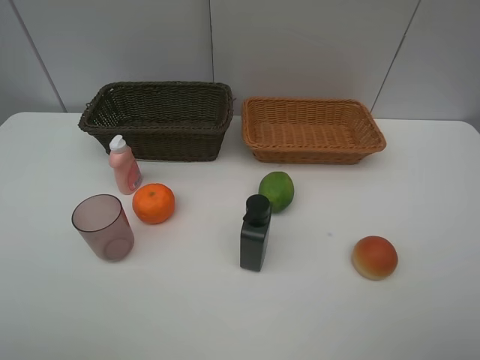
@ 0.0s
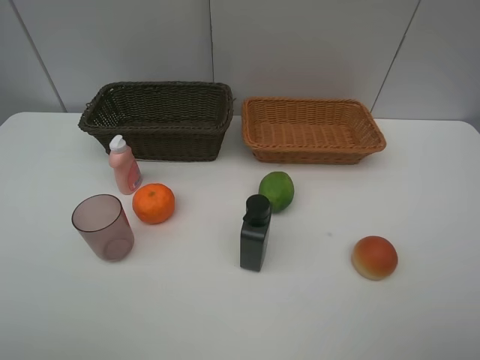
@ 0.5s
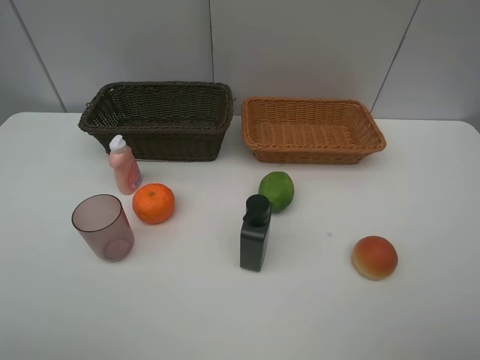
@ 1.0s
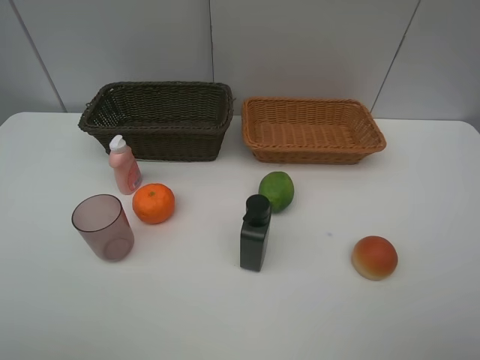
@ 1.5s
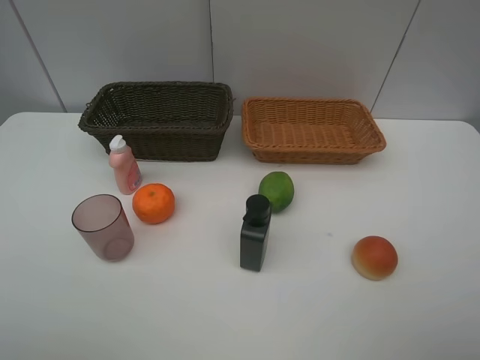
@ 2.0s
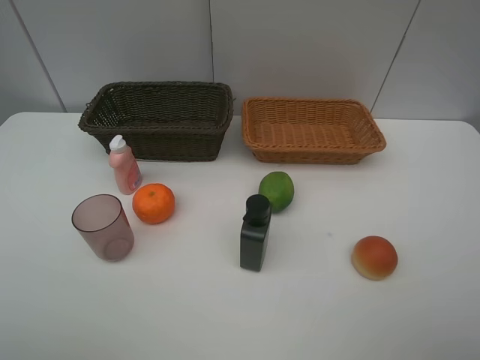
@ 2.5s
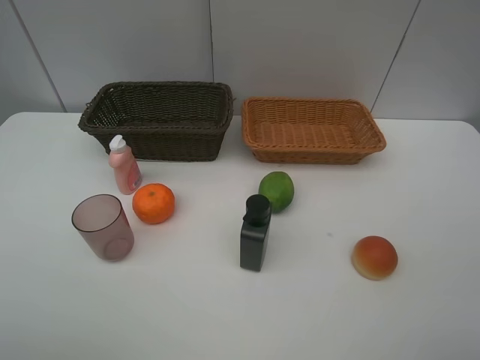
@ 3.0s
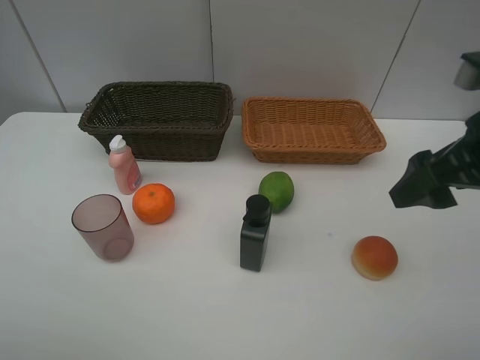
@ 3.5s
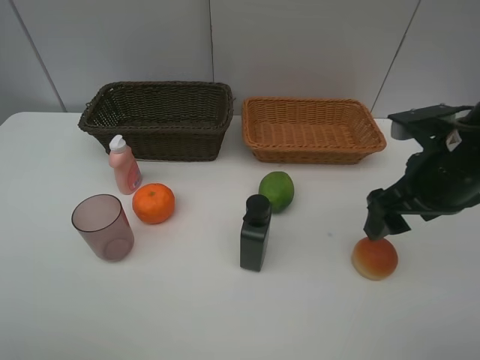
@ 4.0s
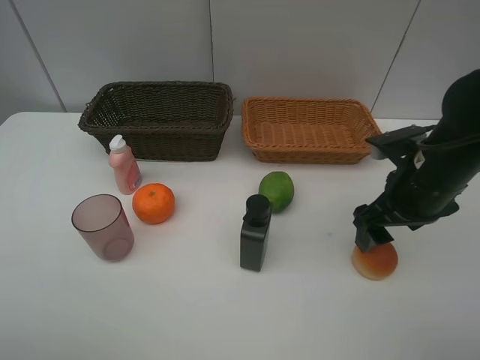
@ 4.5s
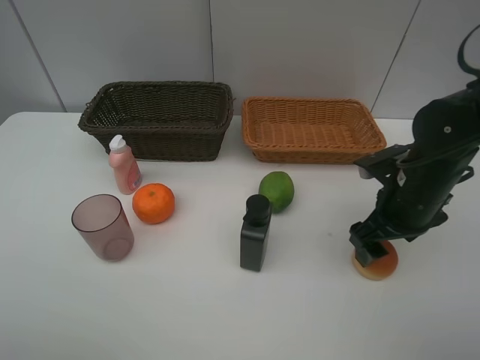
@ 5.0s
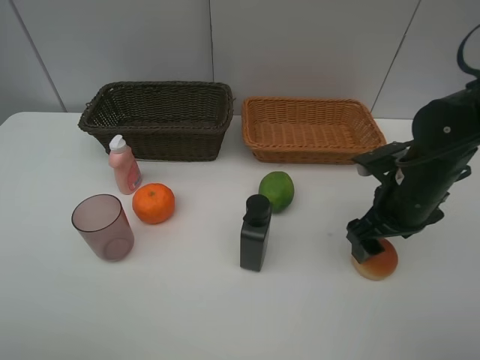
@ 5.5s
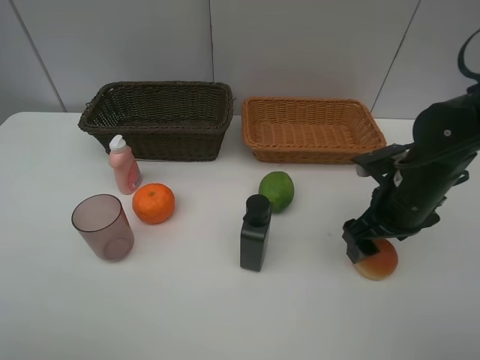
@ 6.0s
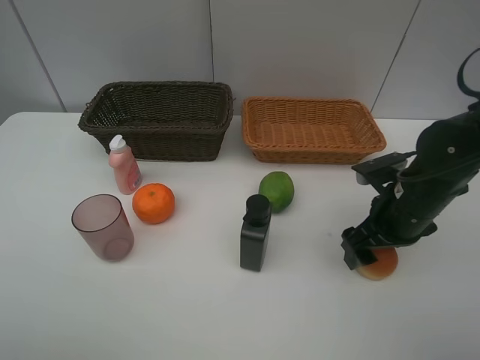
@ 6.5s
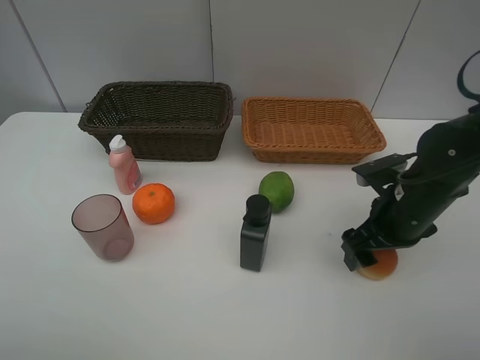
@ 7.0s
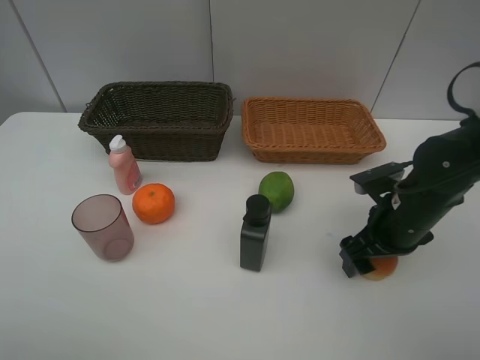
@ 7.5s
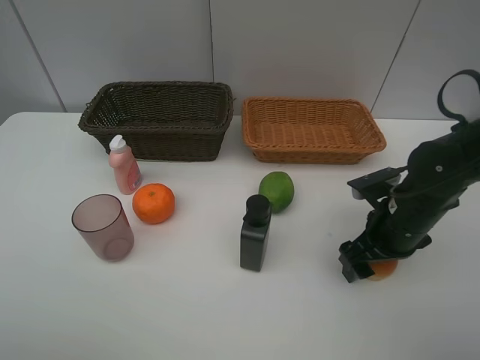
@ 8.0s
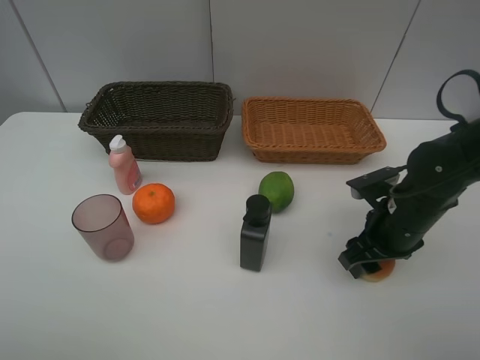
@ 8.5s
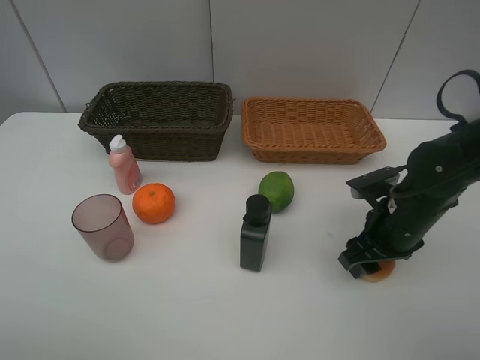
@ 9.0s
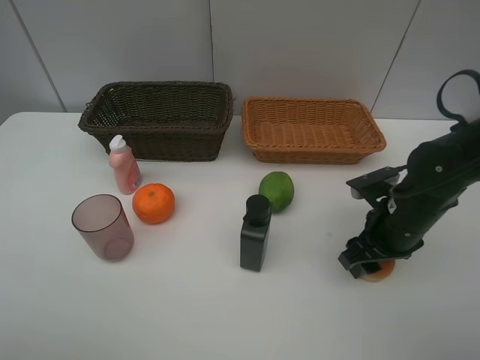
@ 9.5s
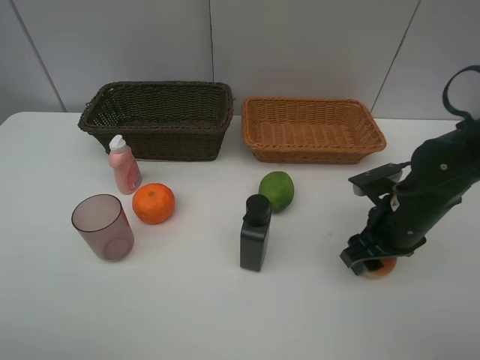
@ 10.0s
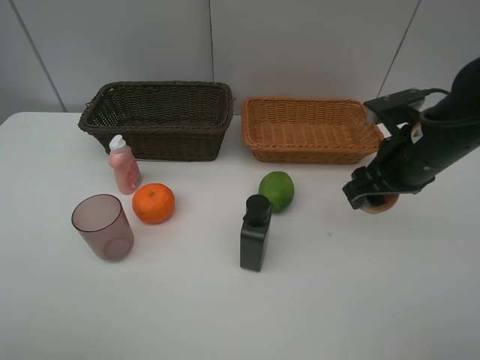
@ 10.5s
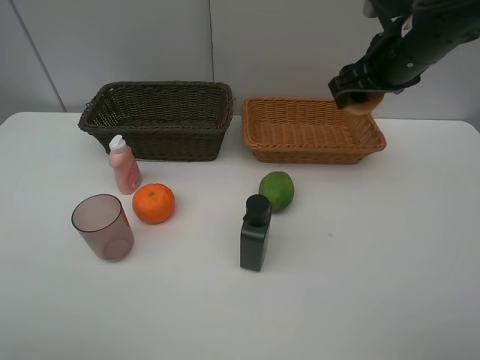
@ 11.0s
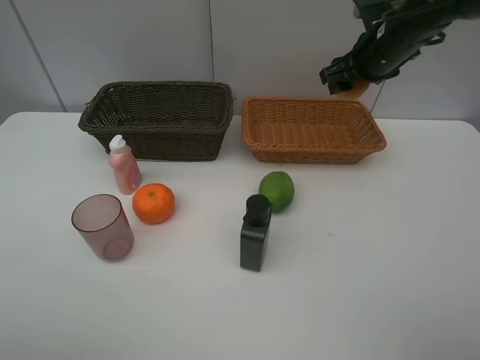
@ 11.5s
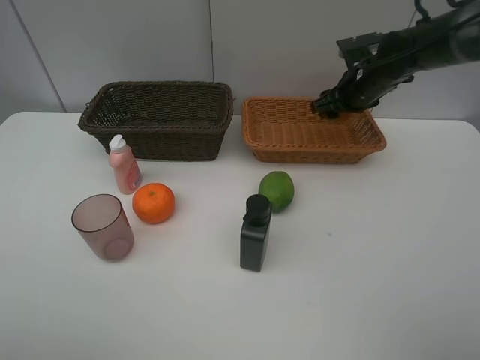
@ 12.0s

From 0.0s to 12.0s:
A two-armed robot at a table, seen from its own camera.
Task of the whole recording: place multiple objects separately in different baskets.
From 0.0s to 2.0s: Both grippers stay put.
From 2.0s to 4.0s: The right gripper travels forward by approximately 20 cm.
From 4.0s to 6.0s: The right gripper heads downward, covering approximately 5 cm.
From 6.0s to 8.0s: There are only small adjustments of the grippers.
From 8.0s to 10.0s: The right gripper closes.
From 10.0s to 12.0s: The right gripper moves forward, roughly 20 cm.

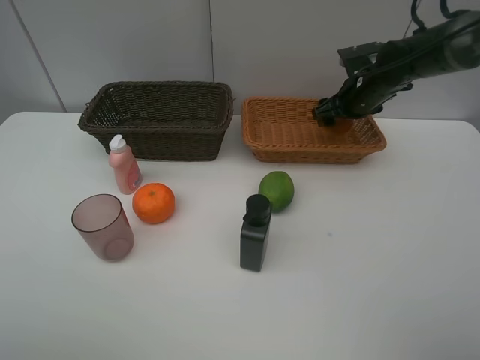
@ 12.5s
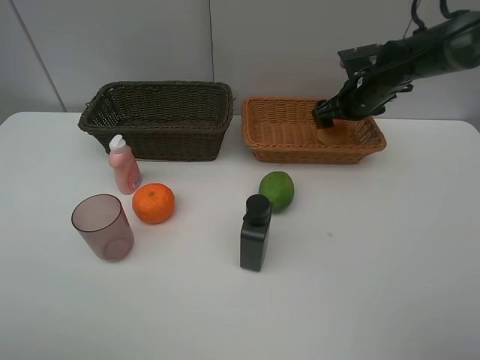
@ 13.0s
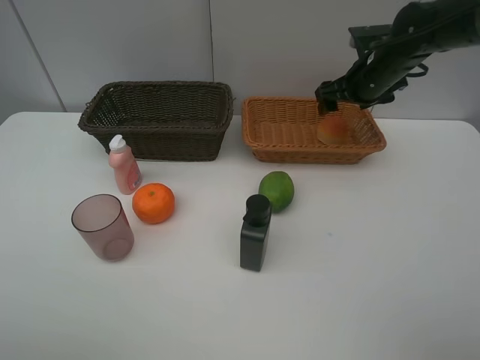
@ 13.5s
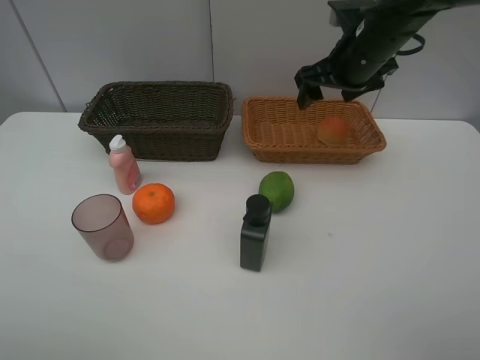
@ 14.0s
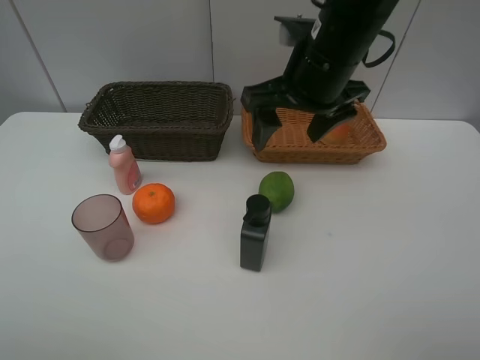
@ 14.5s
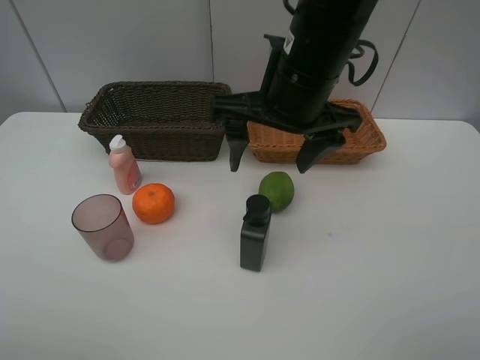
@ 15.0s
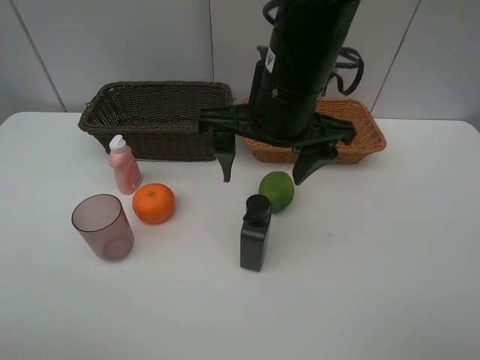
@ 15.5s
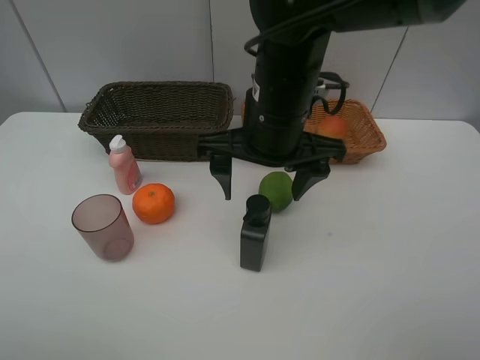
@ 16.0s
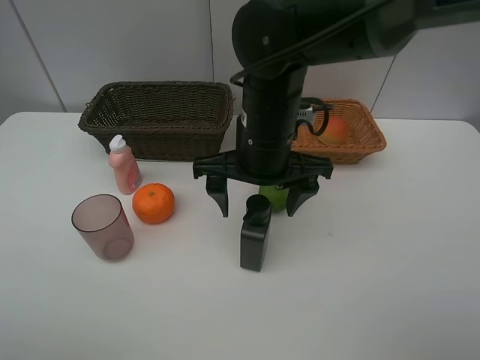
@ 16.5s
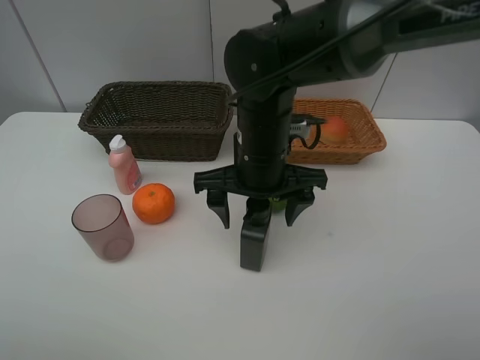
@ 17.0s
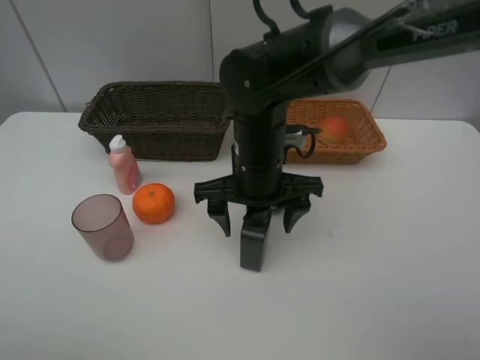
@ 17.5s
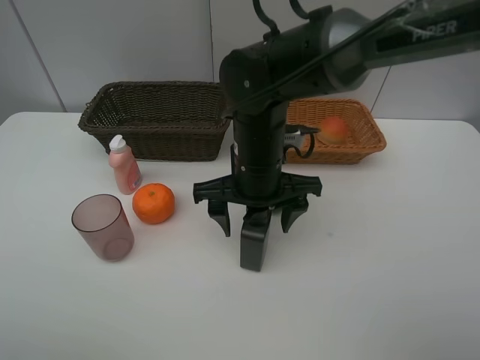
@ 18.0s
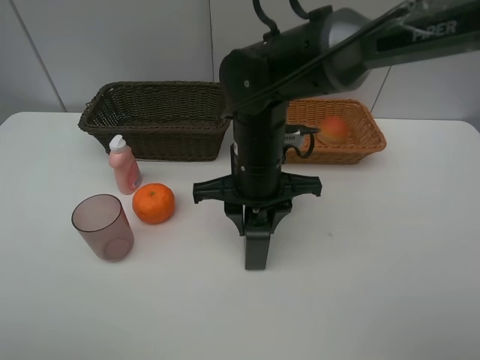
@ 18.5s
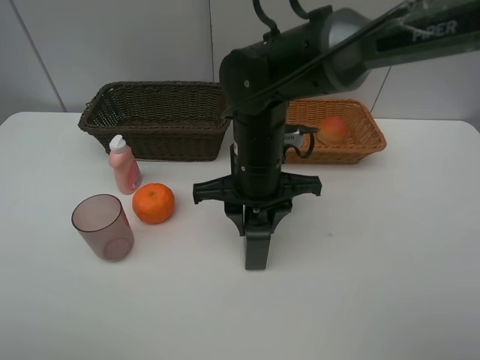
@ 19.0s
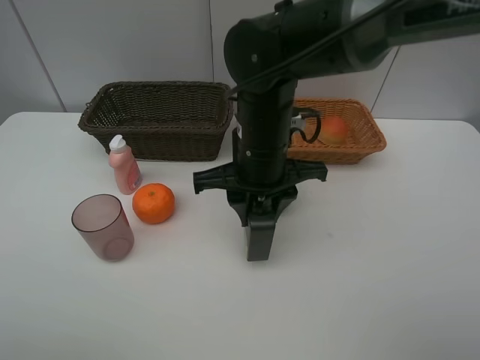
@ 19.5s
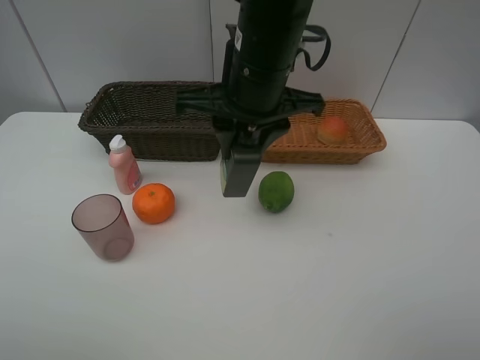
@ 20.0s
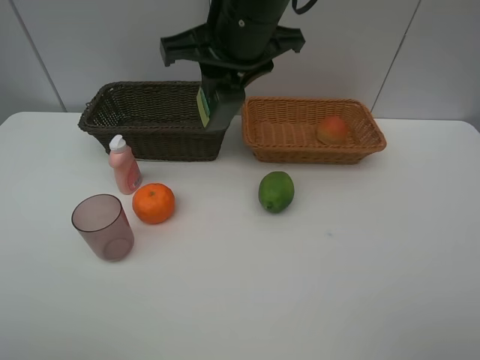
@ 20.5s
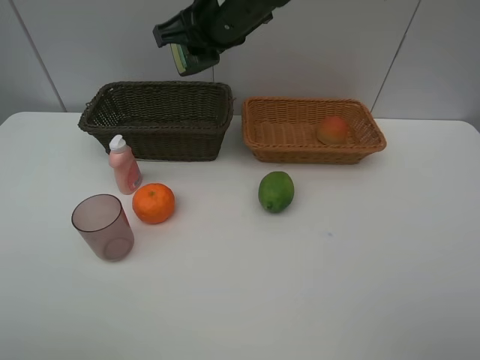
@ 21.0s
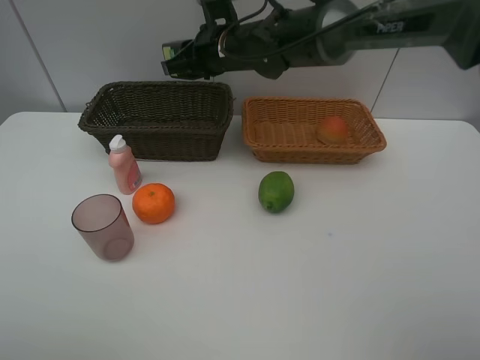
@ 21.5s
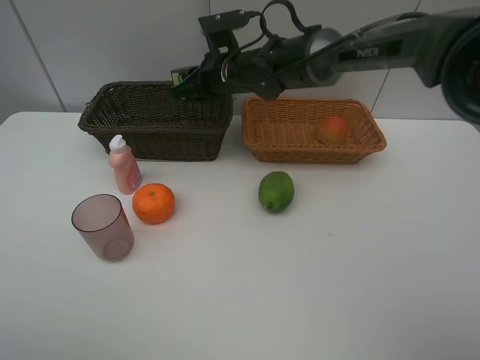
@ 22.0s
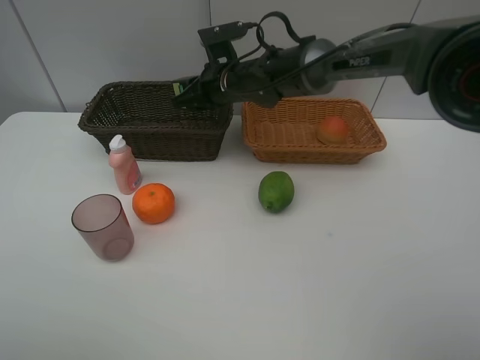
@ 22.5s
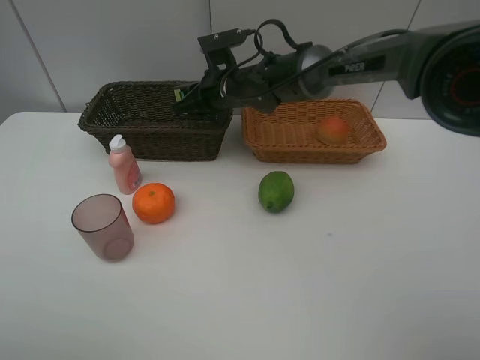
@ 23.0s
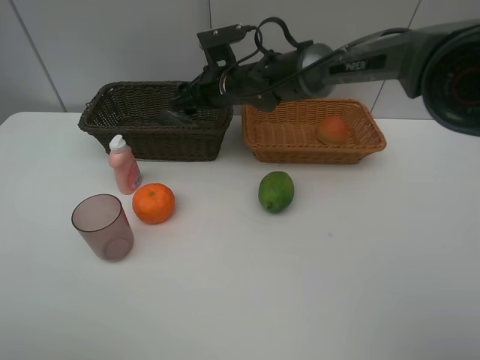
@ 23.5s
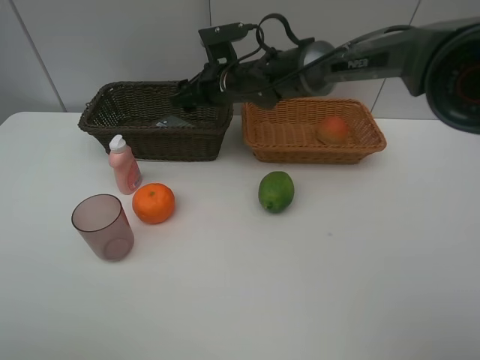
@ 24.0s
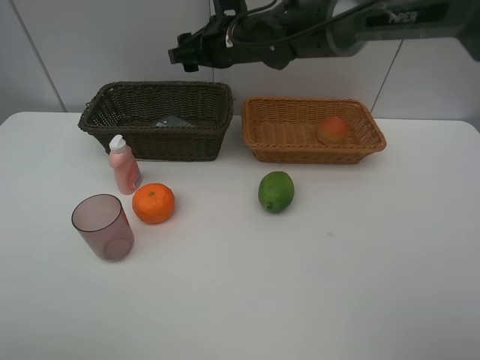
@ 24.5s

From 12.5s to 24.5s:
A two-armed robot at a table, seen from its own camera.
Task of the whole recording: place multiple objects separately in different baskets.
From 12.5s to 14.5s: The right gripper goes roughly 25 cm backward, to the left and upward.
From 14.5s to 16.5s: The right gripper moves downward and to the left, roughly 10 cm.
From 16.5s to 18.5s: The right gripper closes its fingers.
From 18.5s to 20.5s: The right gripper goes approximately 15 cm upward.
From 20.5s to 22.5s: The right gripper is displaced downward and forward by about 20 cm.
From 22.5s to 24.5s: The right gripper travels upward by approximately 5 cm, and opens up.

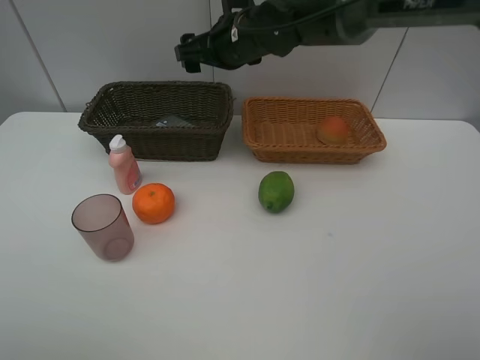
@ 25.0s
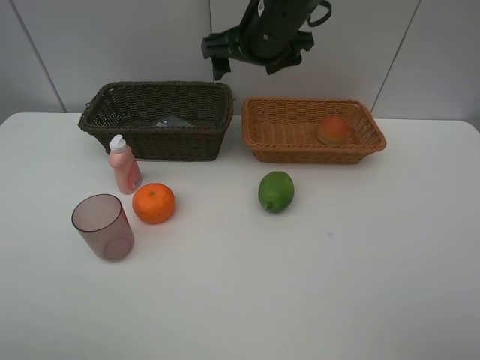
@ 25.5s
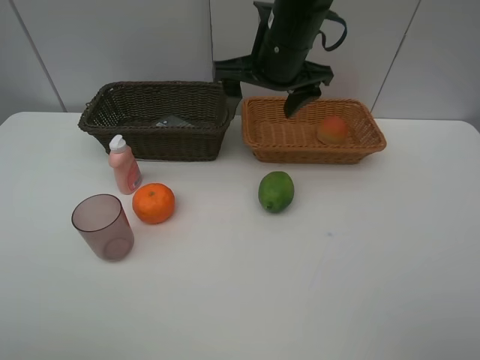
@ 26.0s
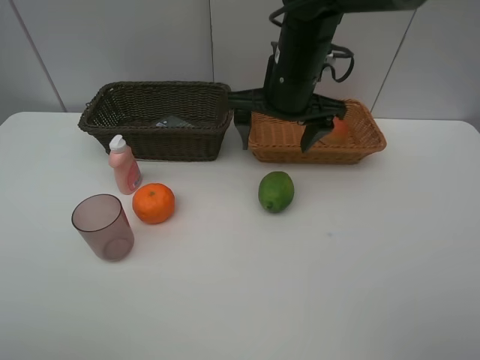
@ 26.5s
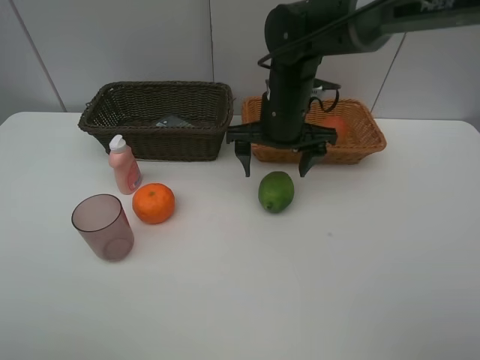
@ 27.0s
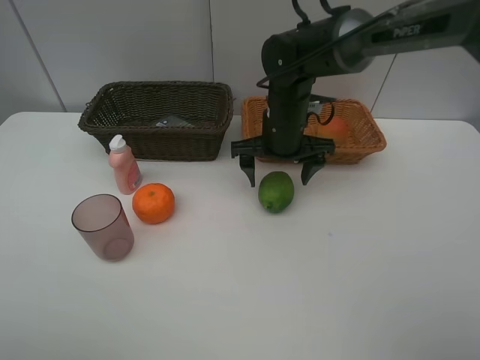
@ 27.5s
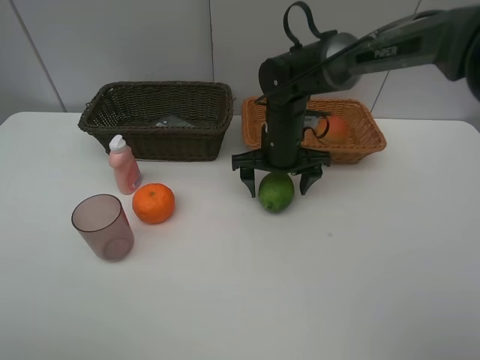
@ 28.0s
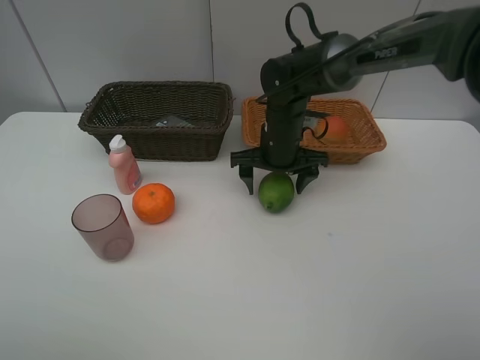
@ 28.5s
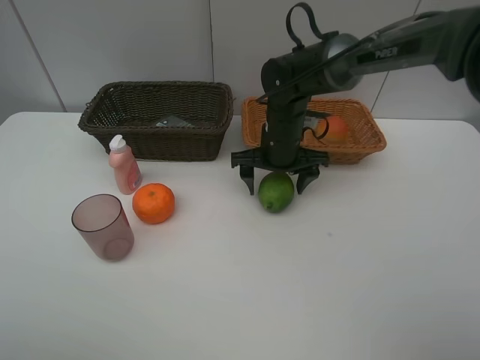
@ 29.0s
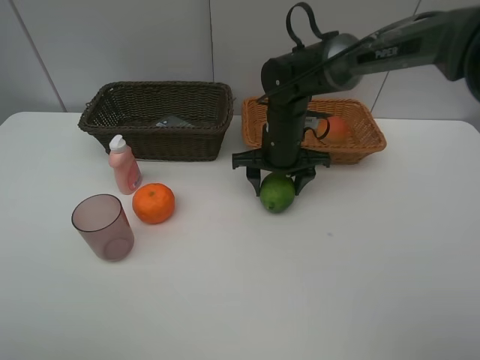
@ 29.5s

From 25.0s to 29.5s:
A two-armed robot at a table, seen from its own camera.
Task of the whole recording: place multiple objects separately in different baskets.
From 25.0s to 27.0s: The right gripper shifts roughly 10 cm backward, downward and to the right.
From 27.0s to 29.5s: The right gripper travels downward by approximately 5 cm, and closes its fingers.
